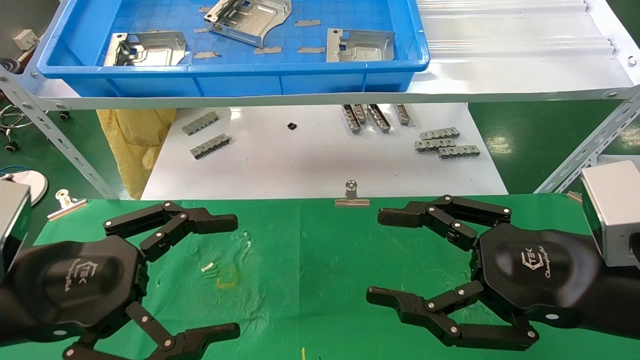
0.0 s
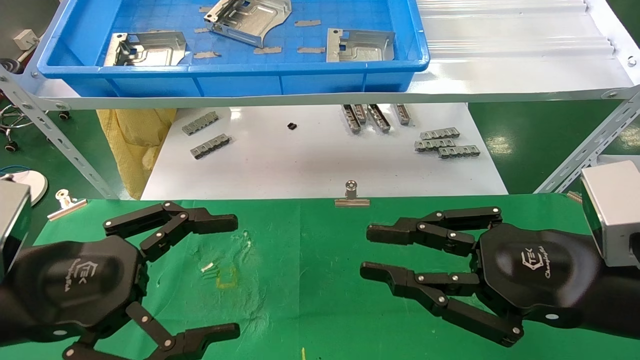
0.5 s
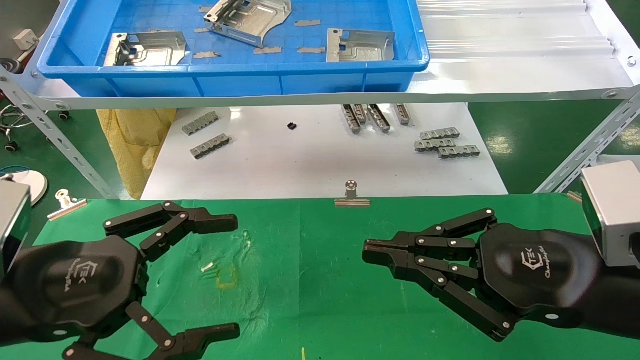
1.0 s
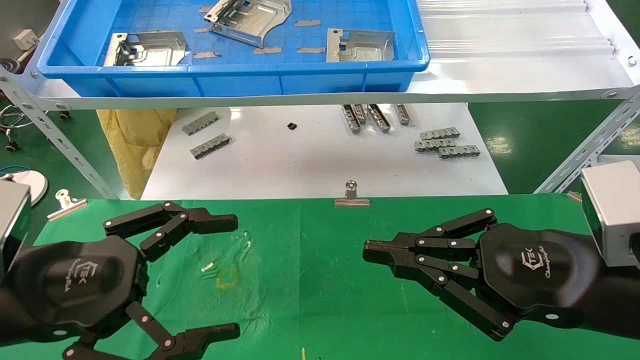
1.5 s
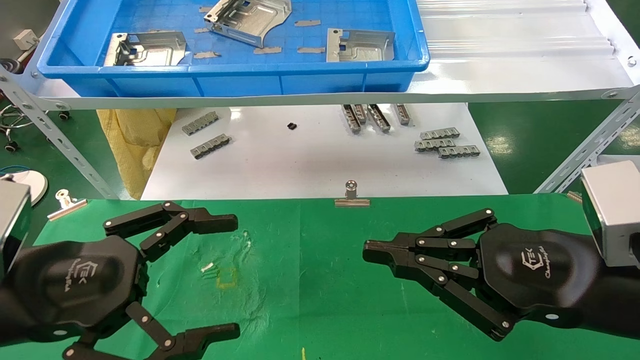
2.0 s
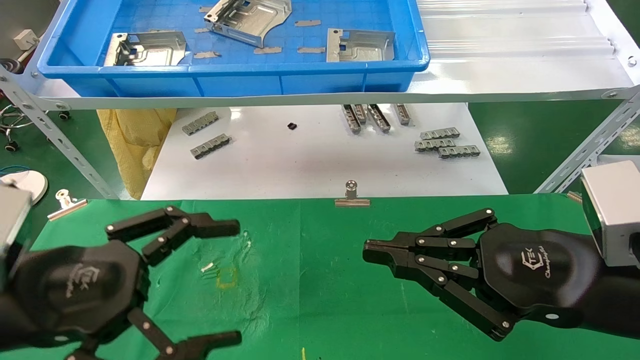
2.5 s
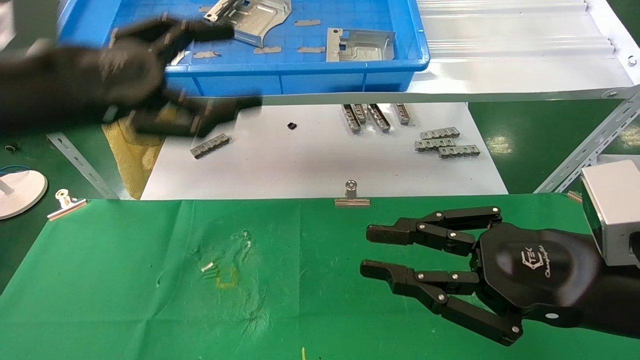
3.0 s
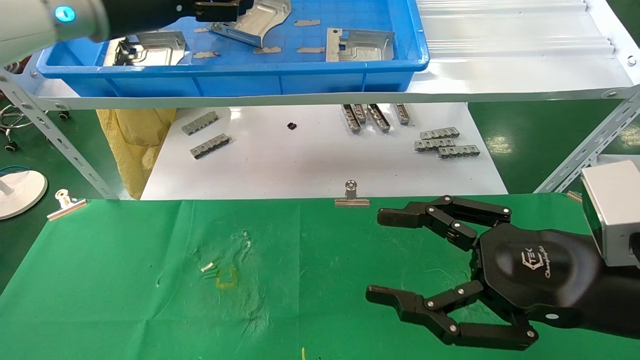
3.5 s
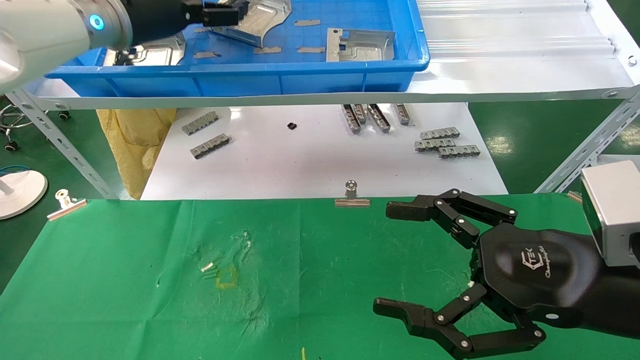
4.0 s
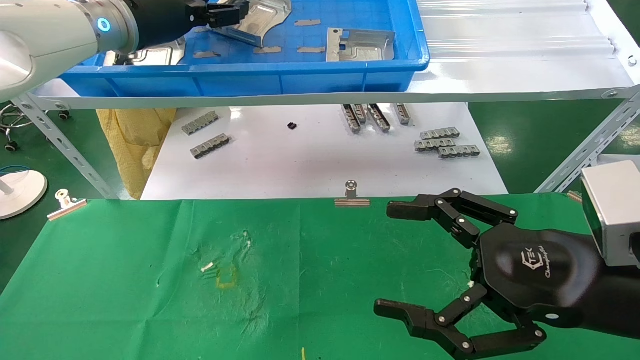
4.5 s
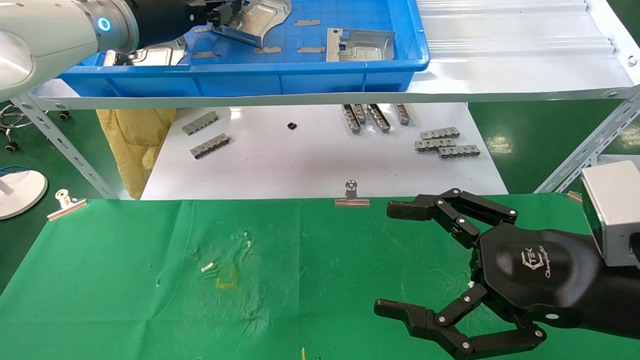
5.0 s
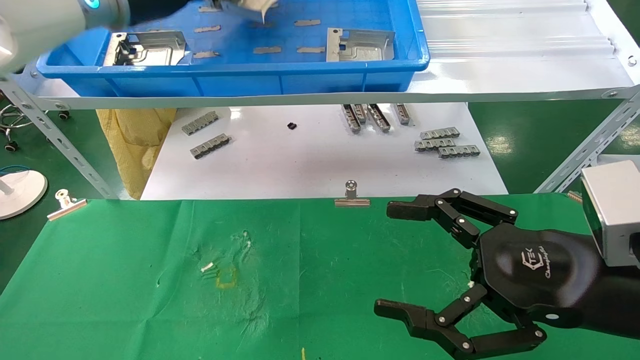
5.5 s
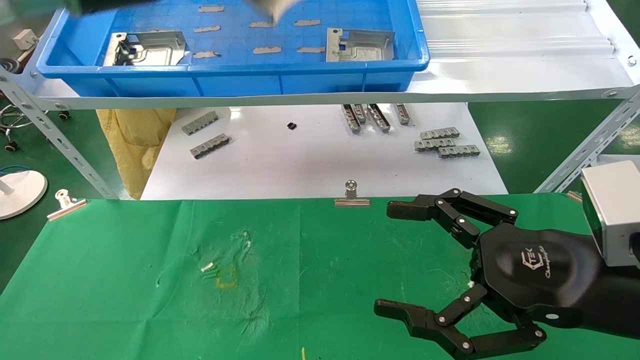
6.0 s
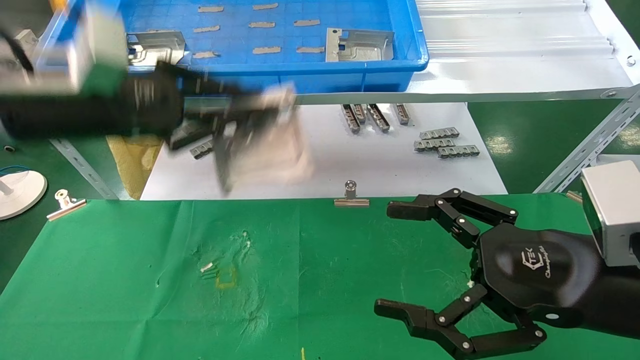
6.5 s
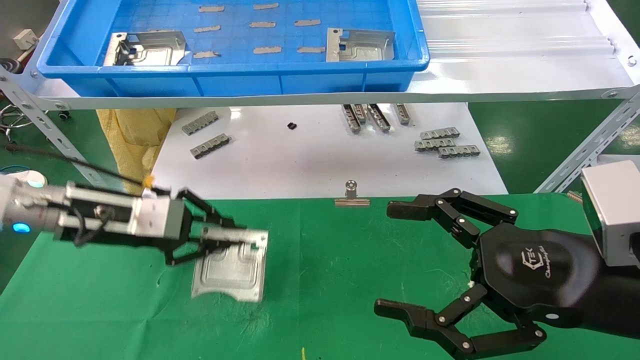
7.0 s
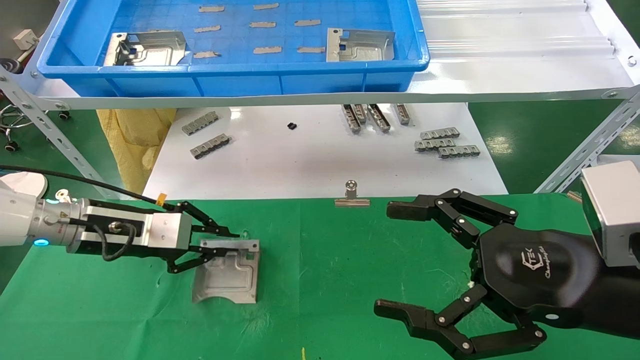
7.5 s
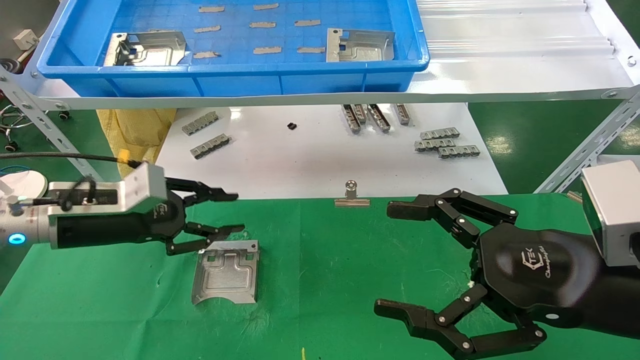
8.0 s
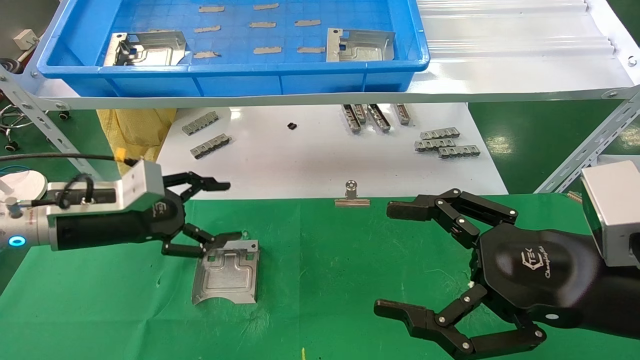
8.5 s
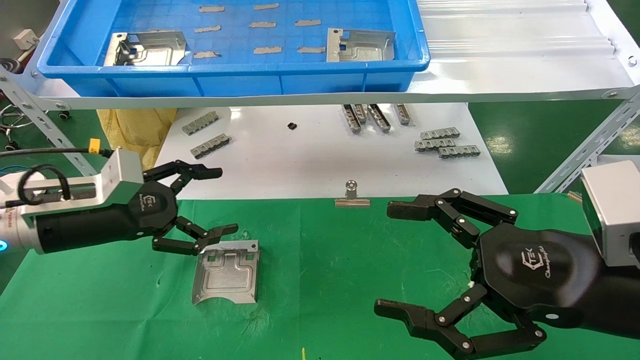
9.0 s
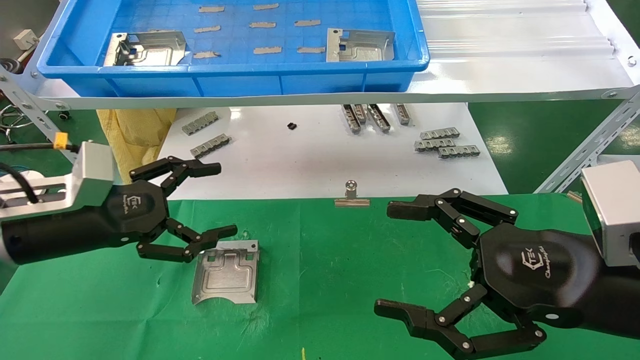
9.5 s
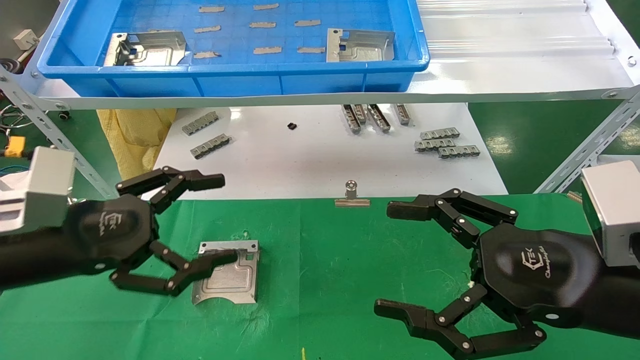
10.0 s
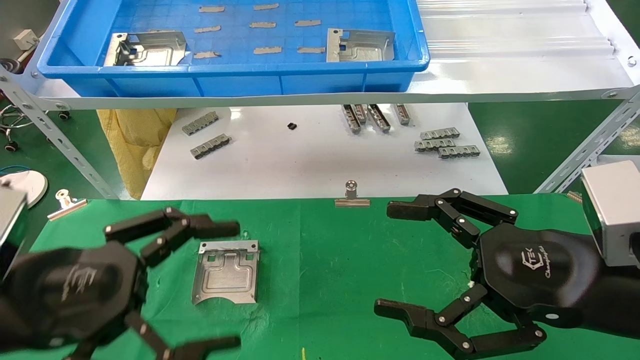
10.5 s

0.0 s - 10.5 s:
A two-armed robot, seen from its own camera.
Task of the whole recording: use the mechanical arm to pick up the parts and place them on the table.
Step, 3.0 s - 5.0 s: Pick up the hard drive bracket from the feeding area.
Step, 5.5 s - 7.5 s: Place the hard drive bracket into the box.
0.0 s - 2.0 s: The right gripper closes its fingers.
2.0 s - 4.0 s: The right gripper opens. Meanwhile the left gripper goes some 35 cm forward and upward.
4.0 s - 6.5 s: The left gripper is displaced backward and downward by roughly 15 cm, and closes.
6.5 s - 8.5 s: The left gripper travels downward by roughly 15 cm, and opens up.
8.5 s - 10.5 s: The left gripper travels backward by some 15 cm.

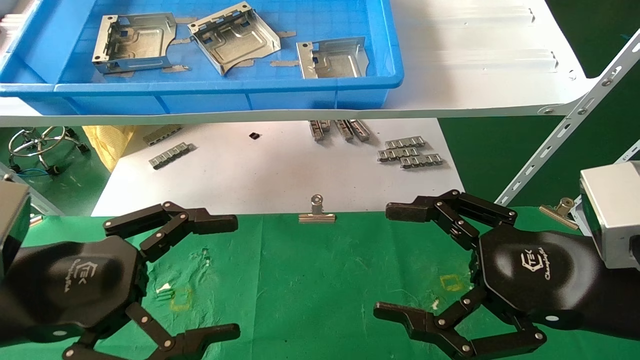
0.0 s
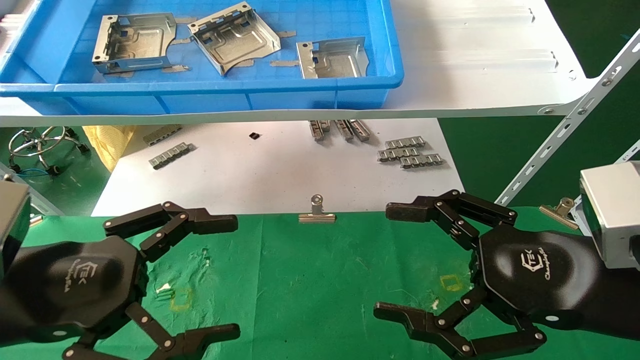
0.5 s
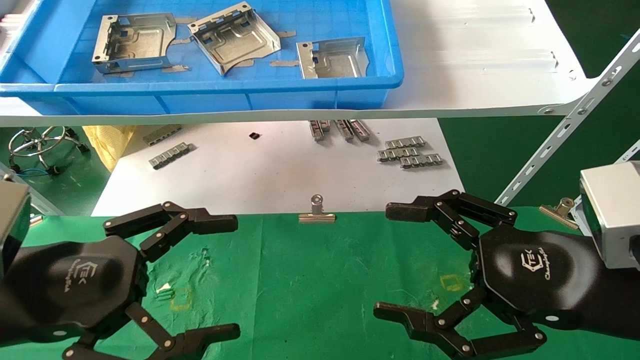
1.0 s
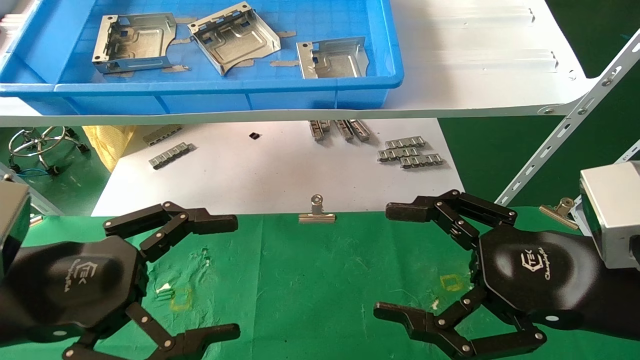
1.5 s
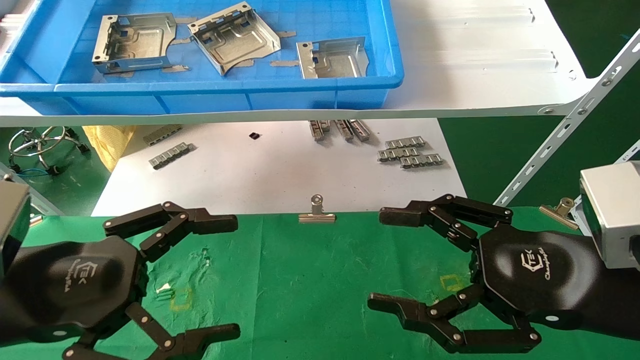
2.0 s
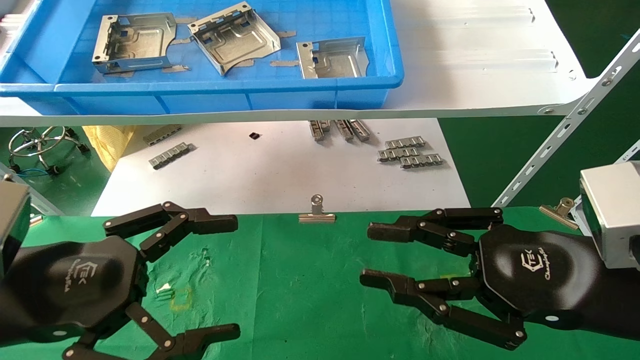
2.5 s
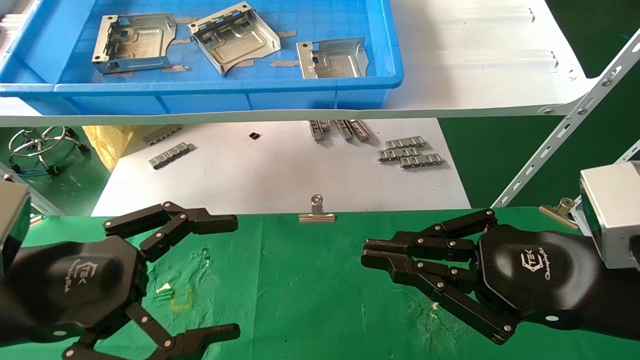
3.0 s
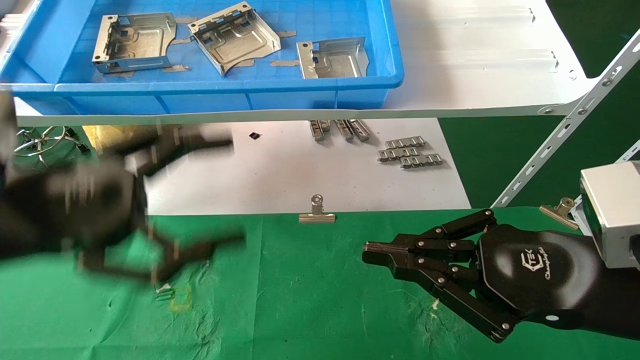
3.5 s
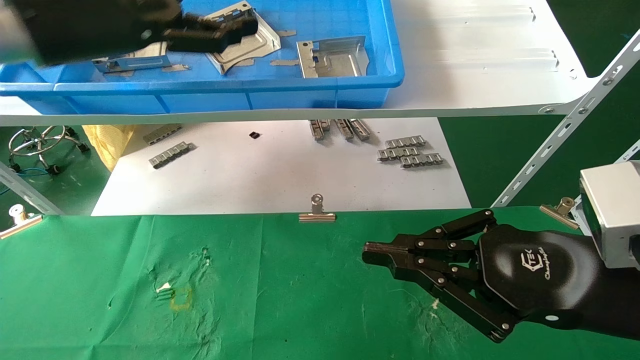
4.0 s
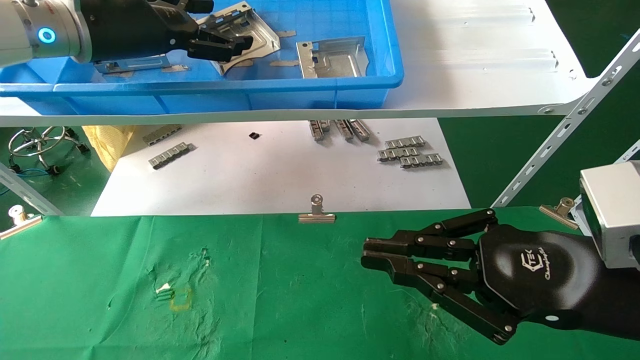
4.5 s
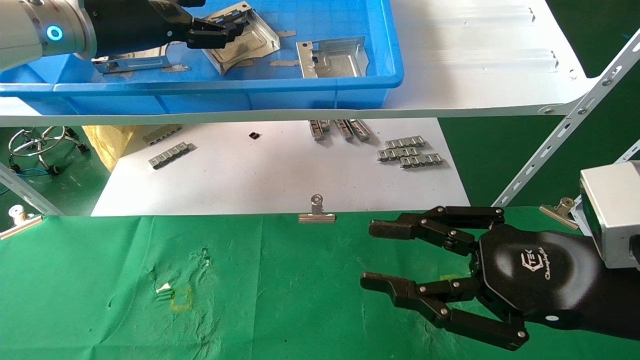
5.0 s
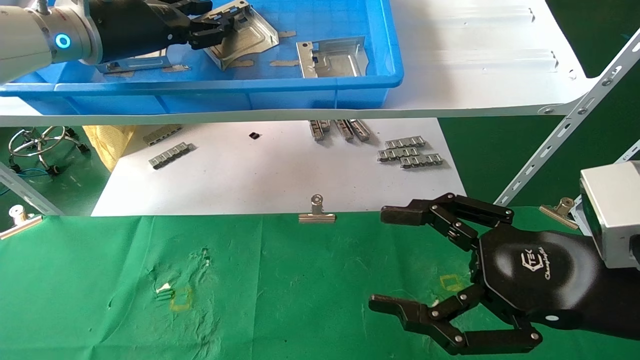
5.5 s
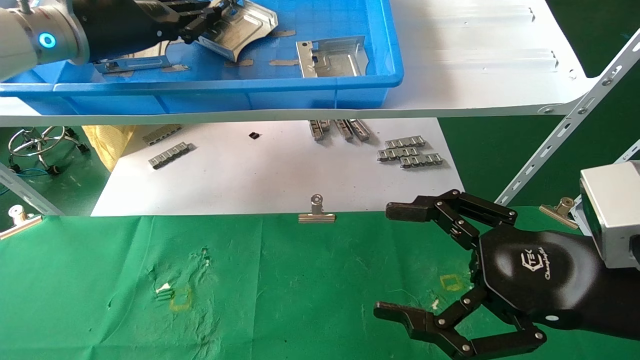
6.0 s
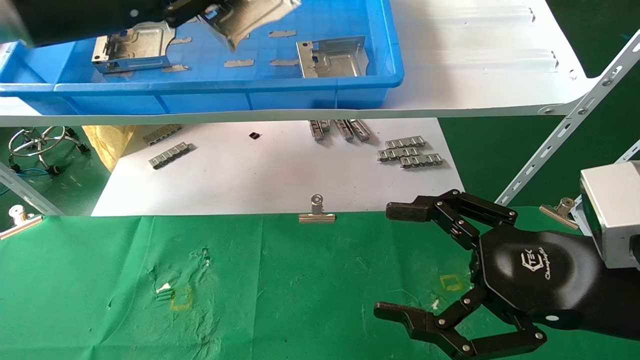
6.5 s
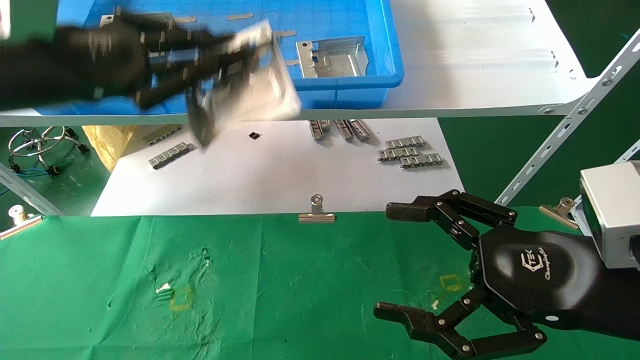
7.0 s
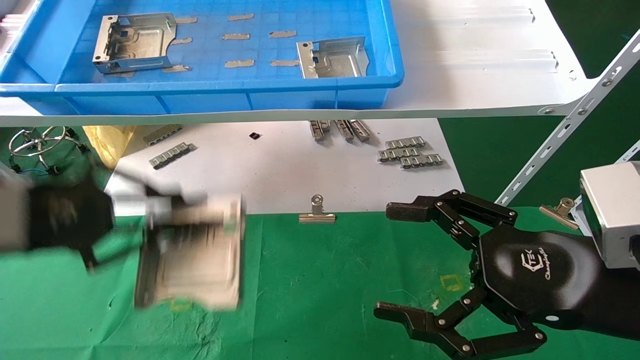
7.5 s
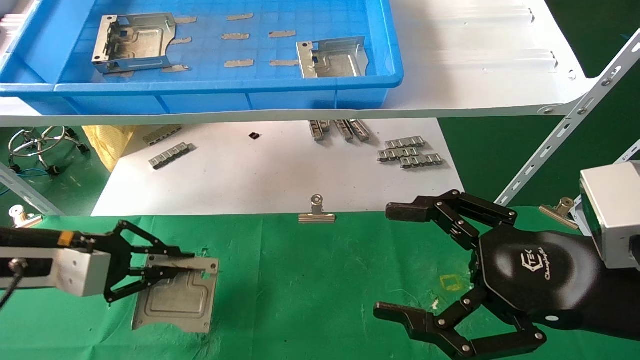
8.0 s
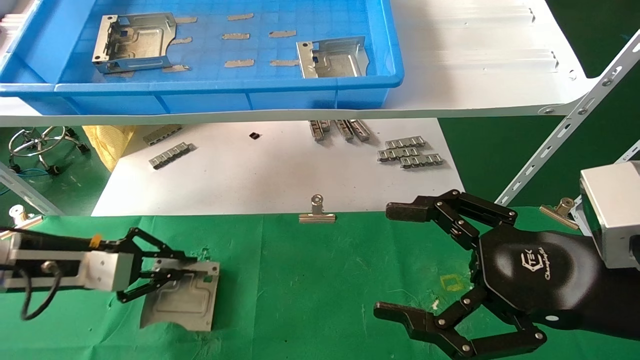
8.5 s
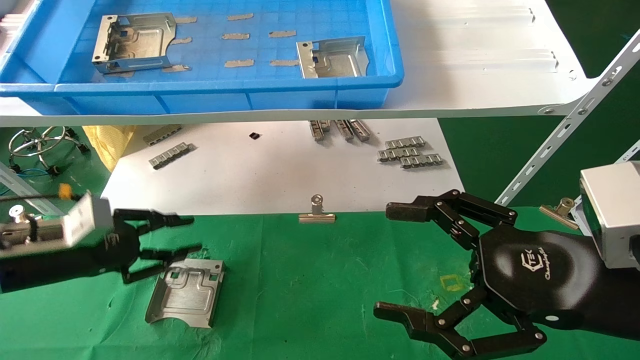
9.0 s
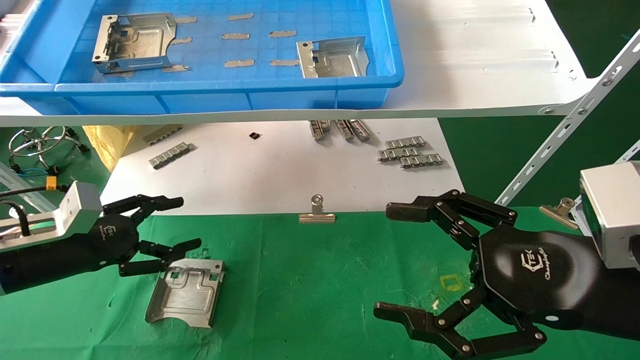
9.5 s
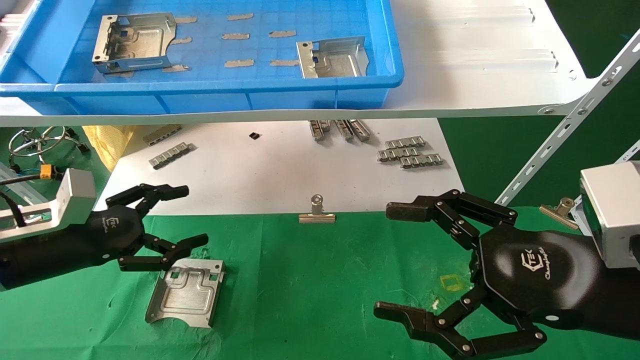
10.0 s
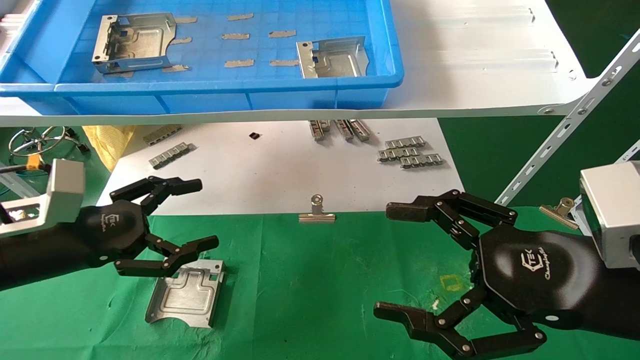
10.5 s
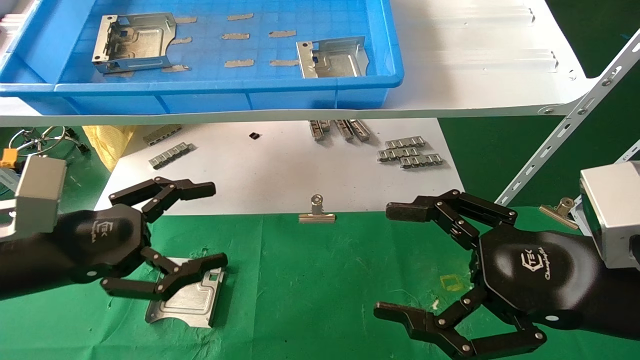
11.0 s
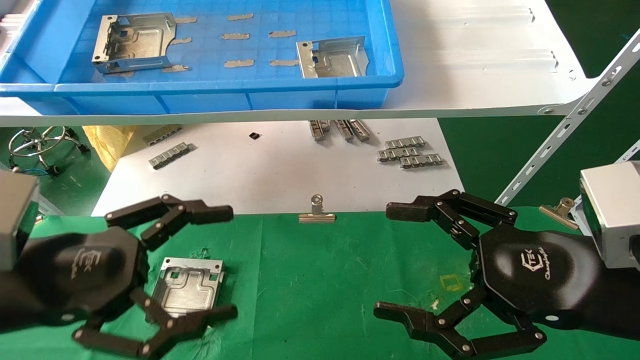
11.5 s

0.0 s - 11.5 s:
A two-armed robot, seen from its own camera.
Task of the whole recording: use the mechanical arm to pick up the parts and place them on the table.
Step, 3.5 s - 5.5 s: Pick up the hard drive bracket from the feeding area.
Step, 6.0 s - 8.5 s: Place the hard drive bracket into the box.
0.0 s - 2.0 s: The two grippers keep their place.
2.0 s - 4.0 s: The right gripper closes. Meanwhile the left gripper shifts some 25 cm upward and forward.
4.0 s - 6.0 s: The right gripper opens up. Meanwhile the left gripper heads forward, covering about 5 cm, and closes.
6.0 s - 7.5 s: The left gripper travels downward and backward by about 25 cm.
7.5 s - 9.5 s: The left gripper travels downward and forward by some 15 cm, and opens.
9.5 s - 11.5 s: The left gripper heads backward, to the right and upward, covering about 15 cm.
